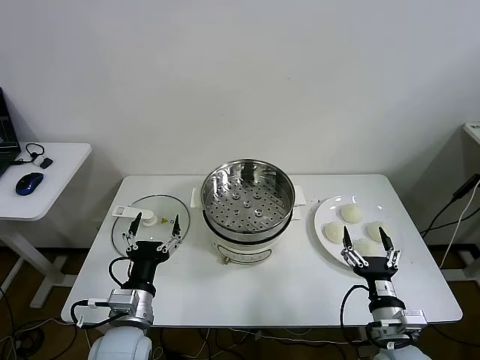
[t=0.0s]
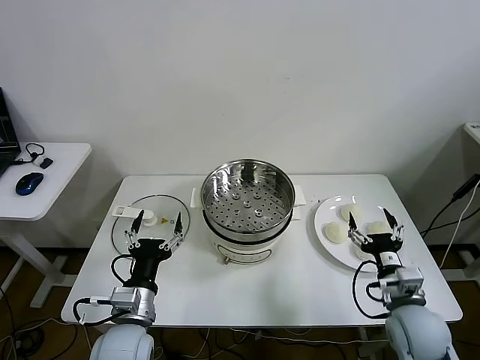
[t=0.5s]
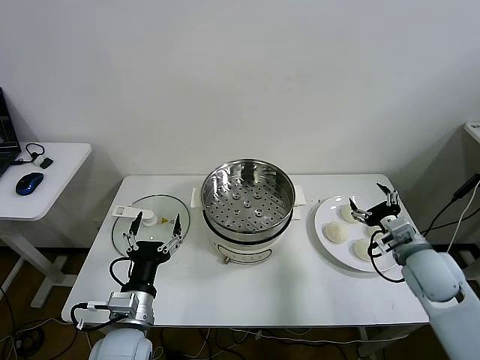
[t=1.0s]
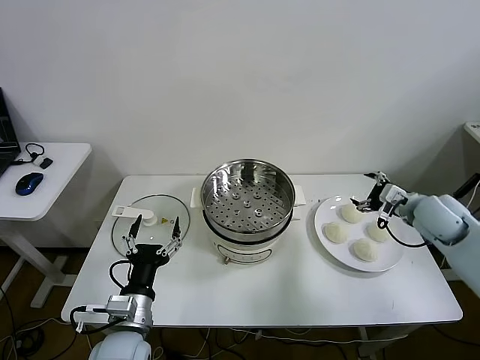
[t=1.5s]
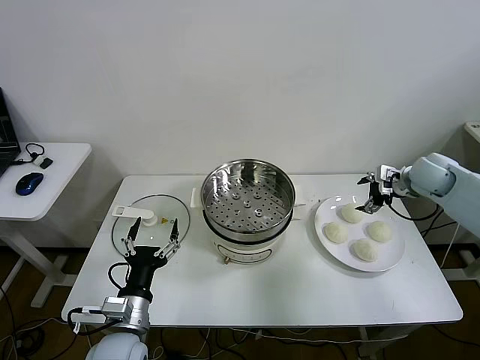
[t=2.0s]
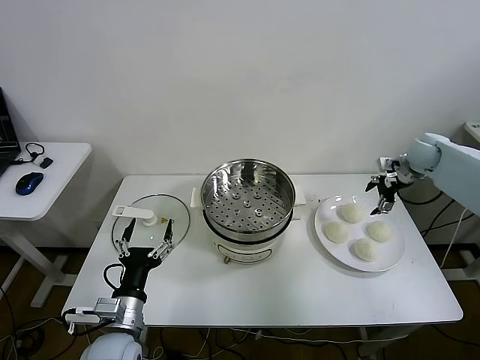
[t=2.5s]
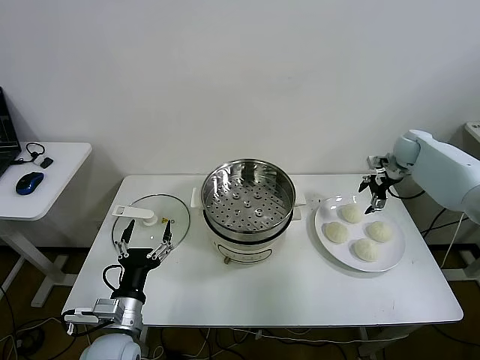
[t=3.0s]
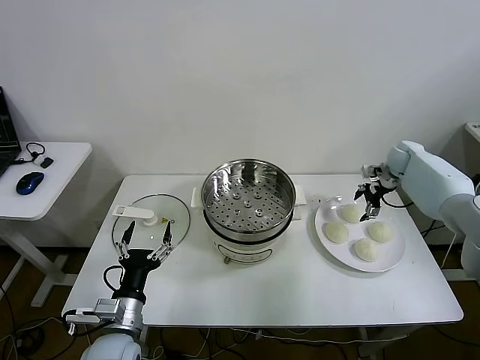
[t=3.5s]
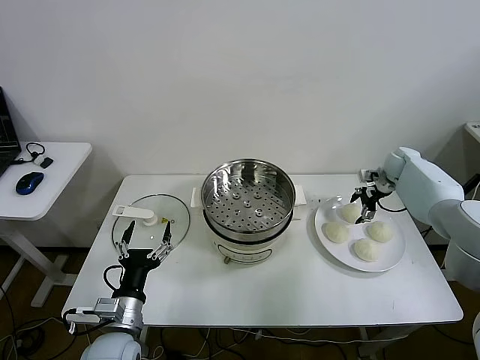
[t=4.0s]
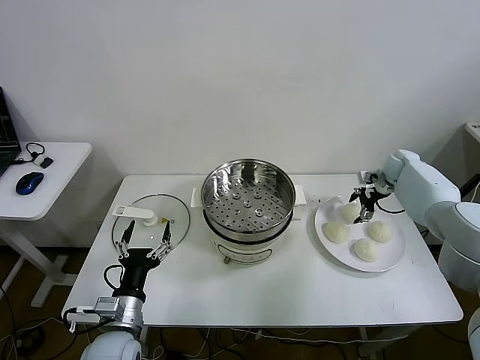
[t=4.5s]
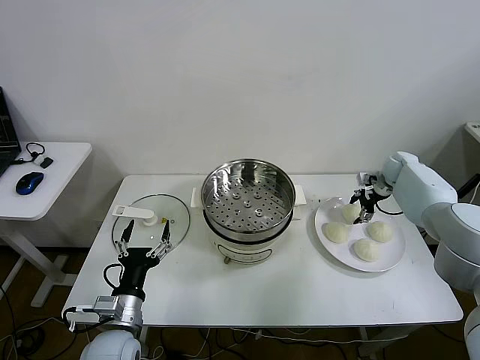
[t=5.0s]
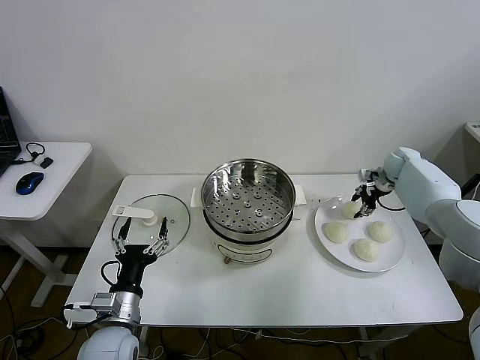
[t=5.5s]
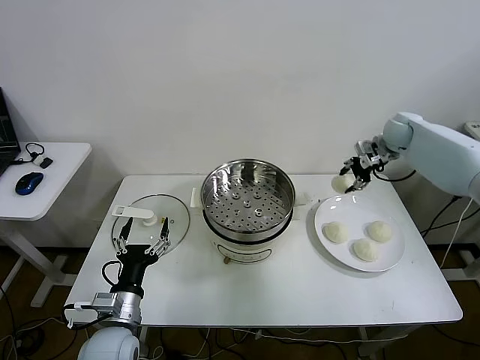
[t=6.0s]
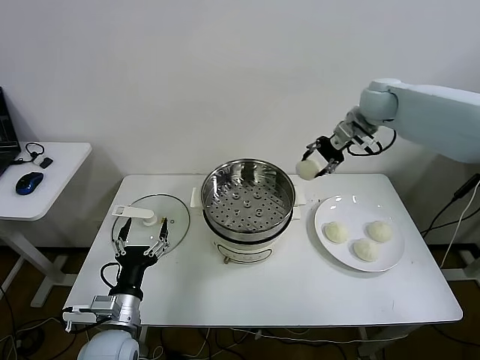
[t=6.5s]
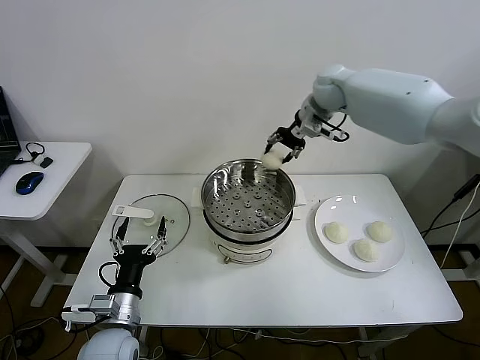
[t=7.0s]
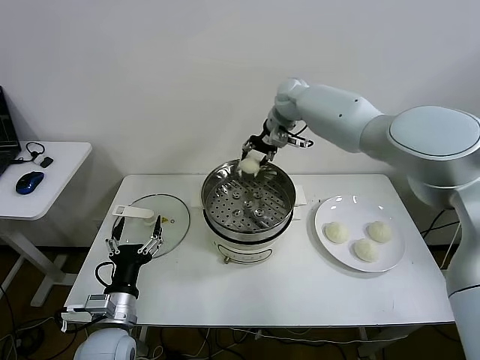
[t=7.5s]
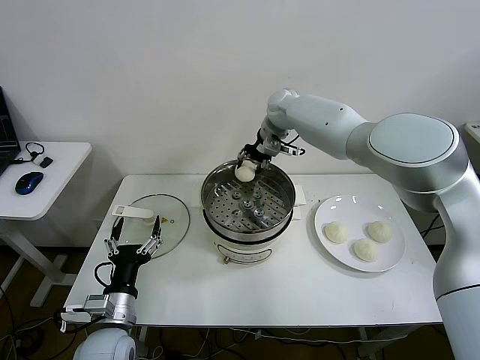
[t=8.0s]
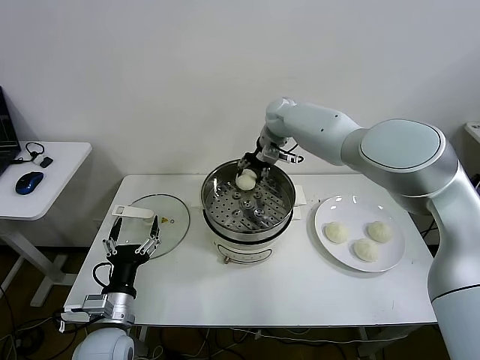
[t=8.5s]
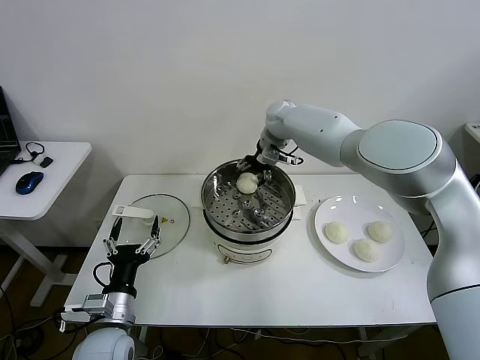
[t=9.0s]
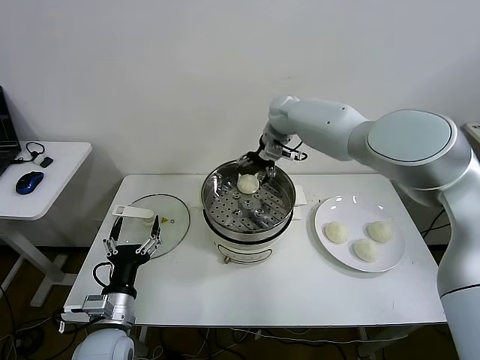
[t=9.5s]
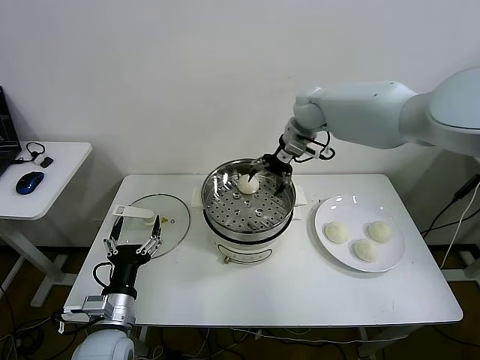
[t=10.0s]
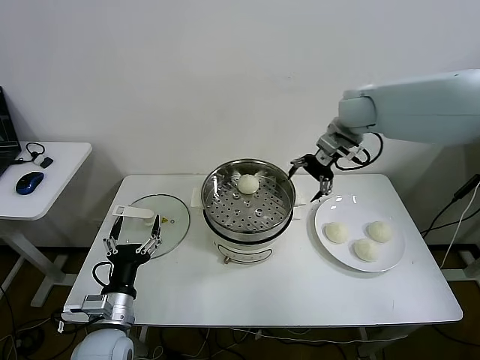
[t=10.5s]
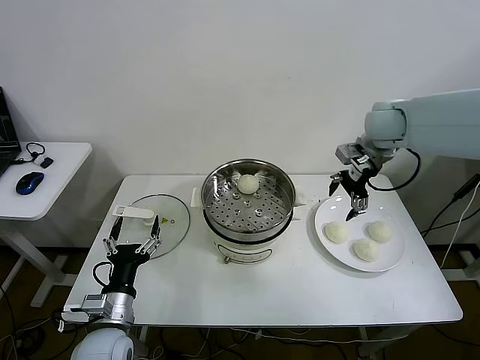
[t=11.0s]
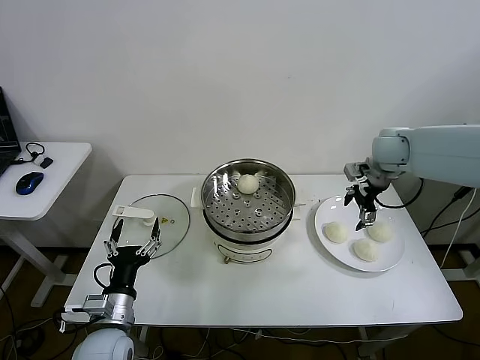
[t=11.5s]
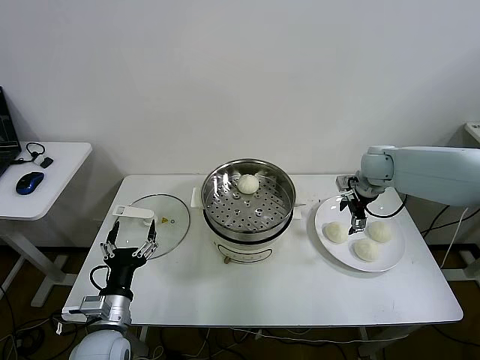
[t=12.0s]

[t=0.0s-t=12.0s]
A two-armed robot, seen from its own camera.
Step, t=0.0s to t=5.0s: Grasp the baozi in the plate with right gripper.
Step, t=5.5s to t=9.0s: Place the baozi on the steamer with right gripper.
t=2.0s to t=4.0s: The right gripper shifts roughly 15 cm forward and downward.
t=4.0s to t=6.0s: The right gripper shifts some 10 cm upward, and closes its fingers.
t=6.0s to t=8.0s: The right gripper moves to the left, some 30 cm.
t=8.0s to t=10.0s: The right gripper heads to the right, covering some 5 cm, and opens its fingers.
t=10.0s to t=12.0s: The right gripper is displaced to the right and downward by roughly 20 cm.

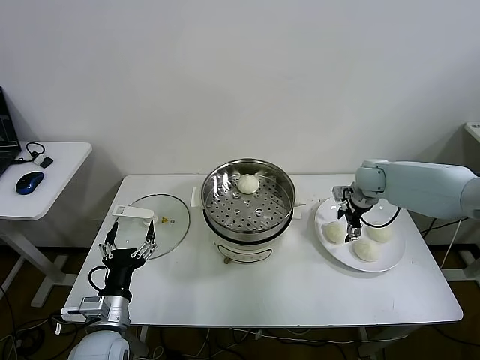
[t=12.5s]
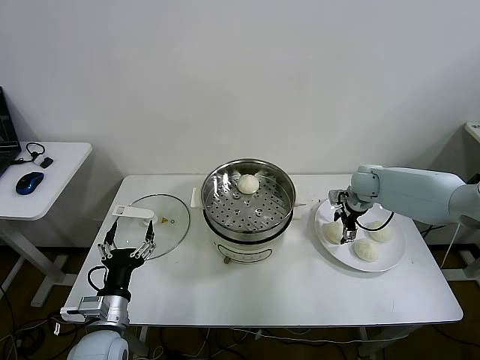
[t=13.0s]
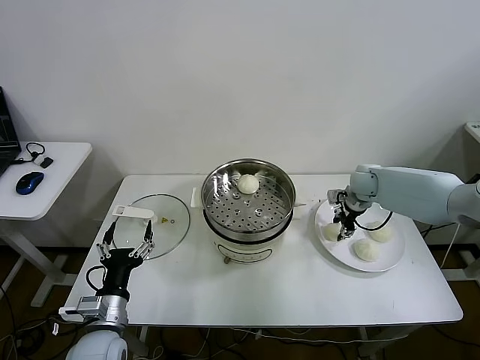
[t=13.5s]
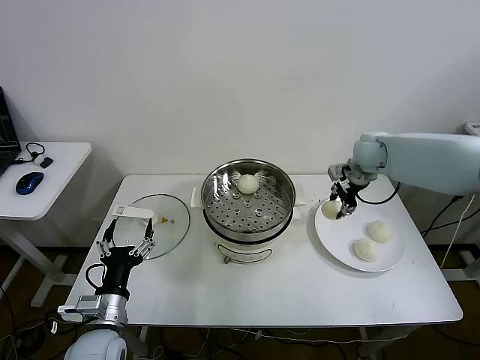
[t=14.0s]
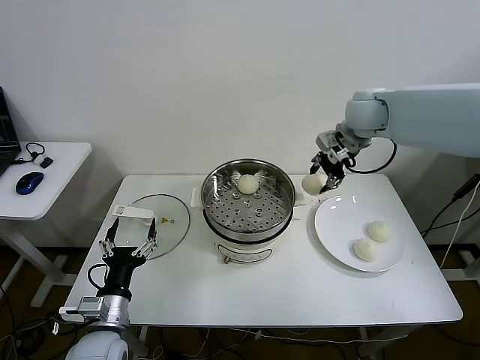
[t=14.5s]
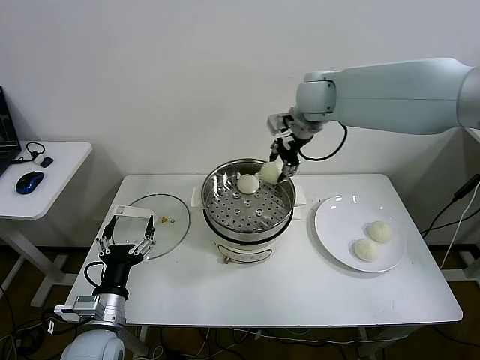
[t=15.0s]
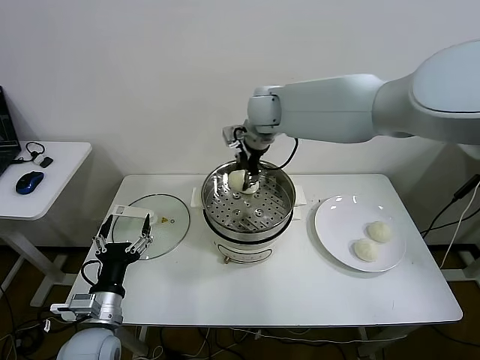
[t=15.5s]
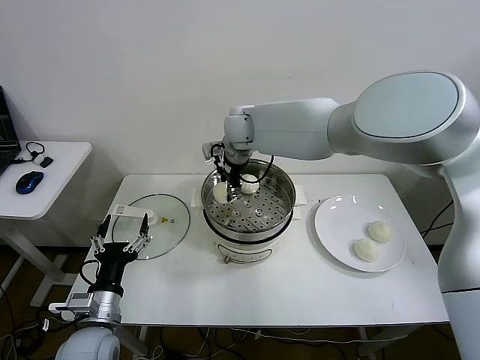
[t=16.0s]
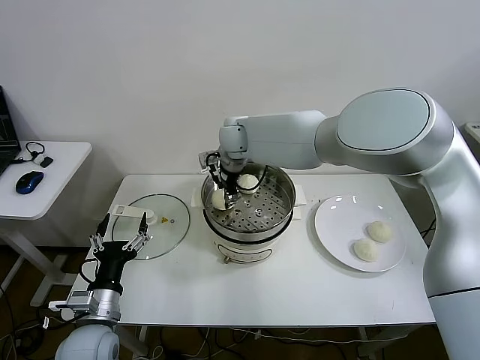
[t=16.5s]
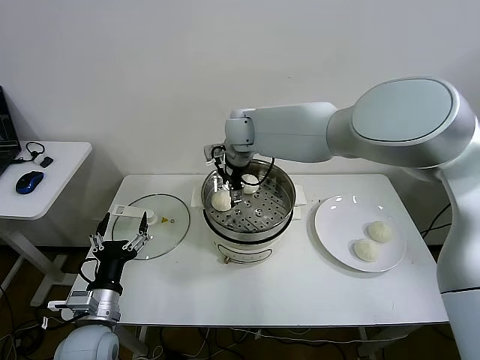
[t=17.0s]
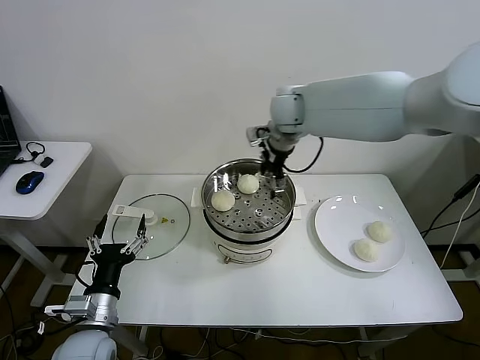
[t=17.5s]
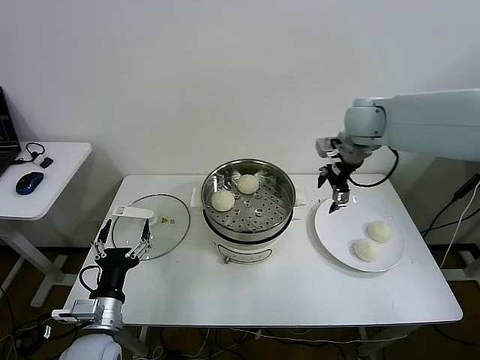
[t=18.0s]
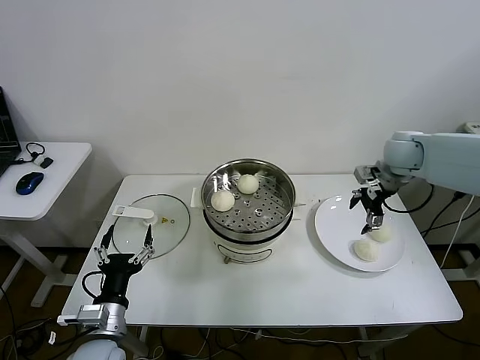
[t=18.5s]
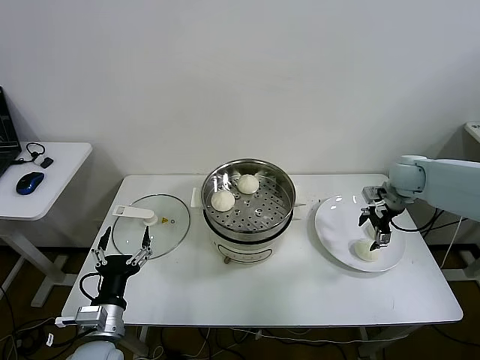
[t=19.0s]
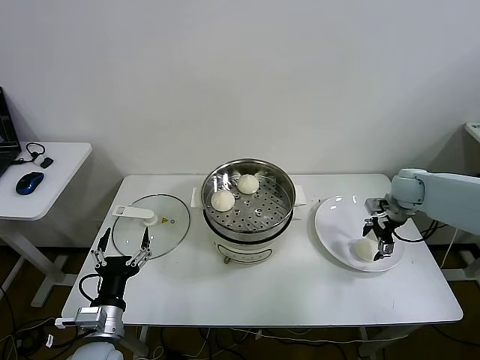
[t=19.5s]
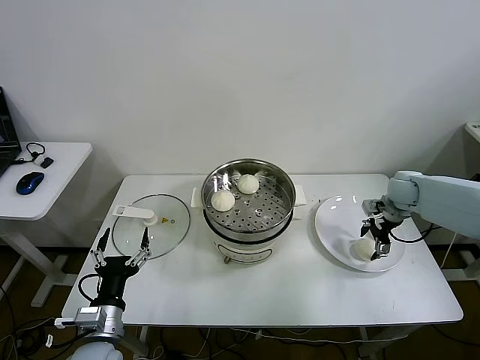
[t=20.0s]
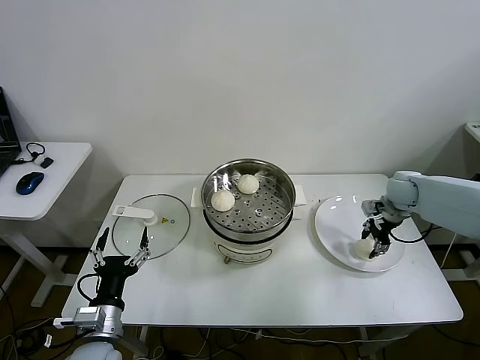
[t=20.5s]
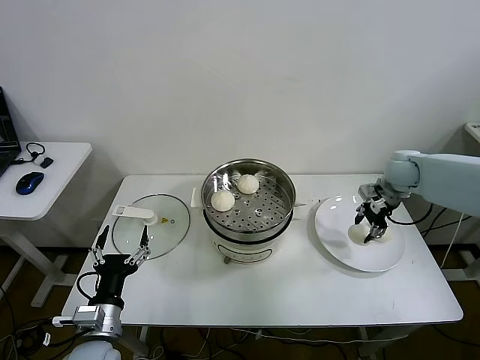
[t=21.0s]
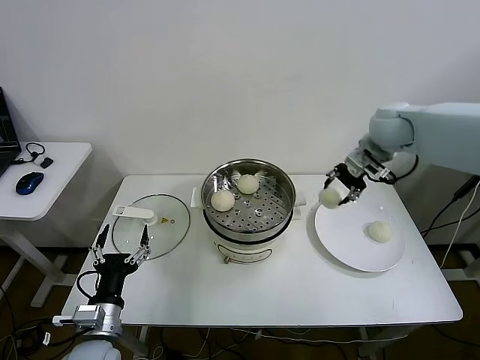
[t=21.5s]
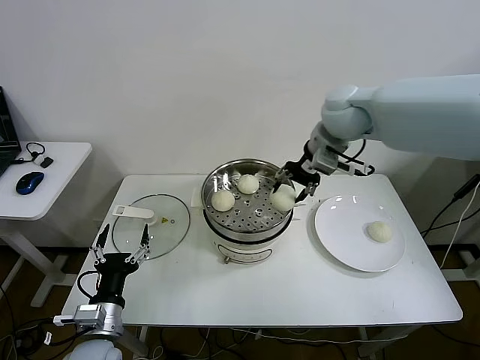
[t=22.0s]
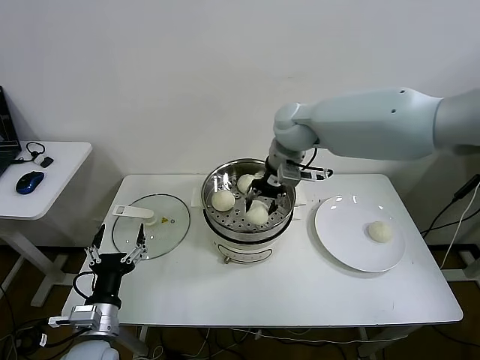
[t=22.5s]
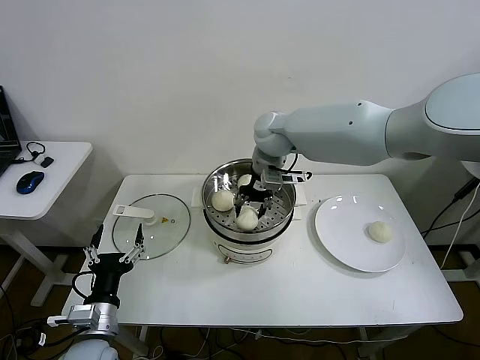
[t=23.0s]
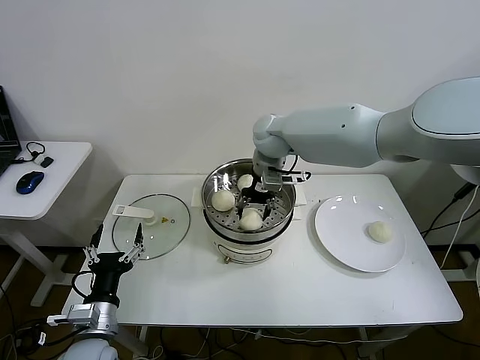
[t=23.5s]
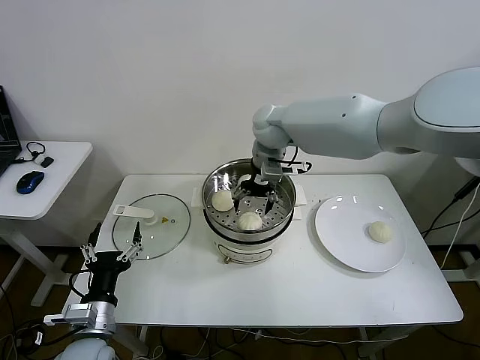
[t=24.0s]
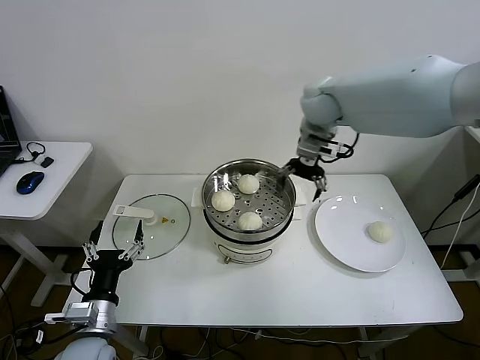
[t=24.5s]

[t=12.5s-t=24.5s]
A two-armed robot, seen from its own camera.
Step, t=14.0s to t=16.5s: Place the baozi on the steamer with right gripper.
Step, t=17.0s to t=20.5s: Grasp the baozi in the plate with right gripper.
Step, t=21.0s to t=23.5s: Place the baozi on the steamer with right gripper.
t=12.5s to t=14.5s: The right gripper heads upward and to the left, covering approximately 20 cm, and closes its fingers.
t=14.5s to t=16.5s: The right gripper travels to the left by about 25 cm.
t=16.5s to t=18.5s: The right gripper goes approximately 40 cm to the right, and opens up.
t=18.5s to t=20.5s: The right gripper travels downward and to the right by about 15 cm, and closes up.
t=20.5s to t=22.5s: The right gripper is displaced to the left and upward by roughly 35 cm.
t=22.5s to t=24.5s: The right gripper goes some 5 cm to the right, and opens its fingers.

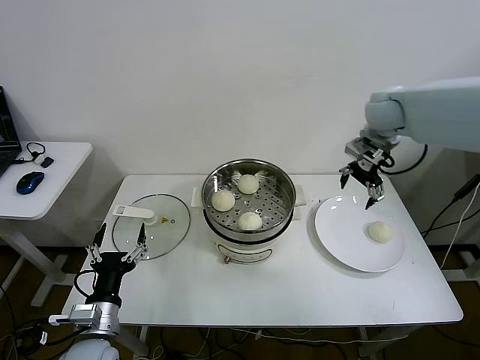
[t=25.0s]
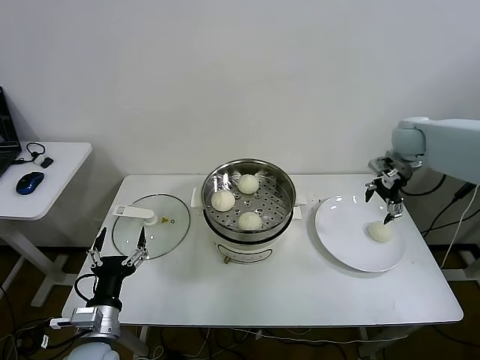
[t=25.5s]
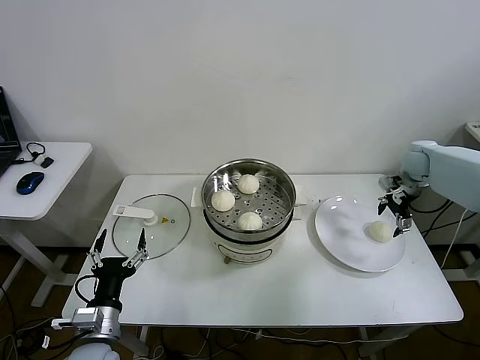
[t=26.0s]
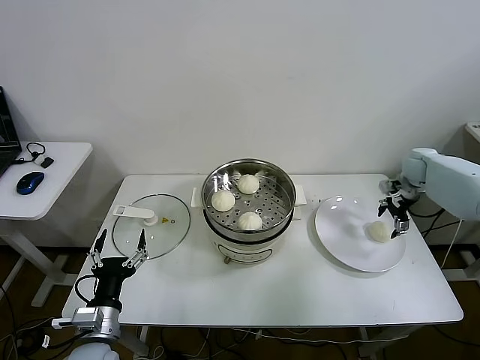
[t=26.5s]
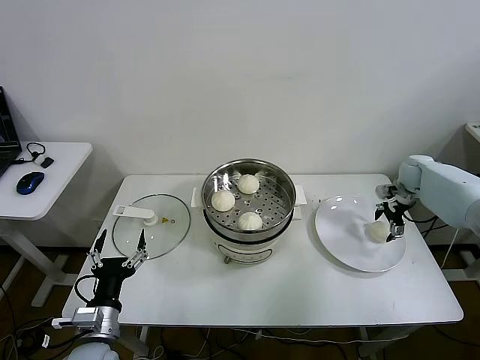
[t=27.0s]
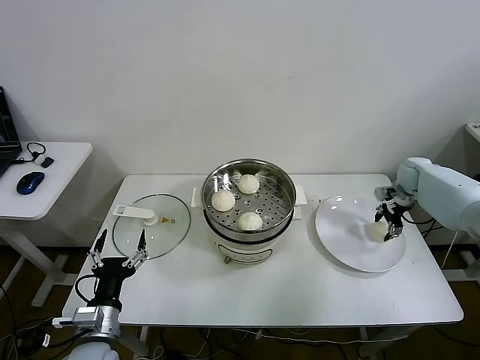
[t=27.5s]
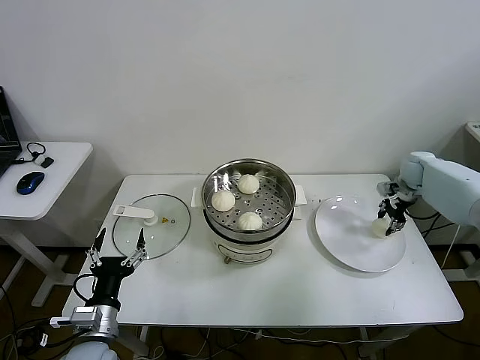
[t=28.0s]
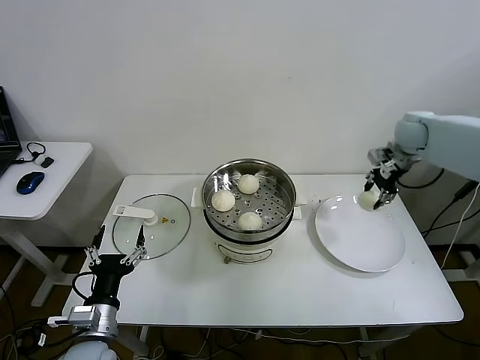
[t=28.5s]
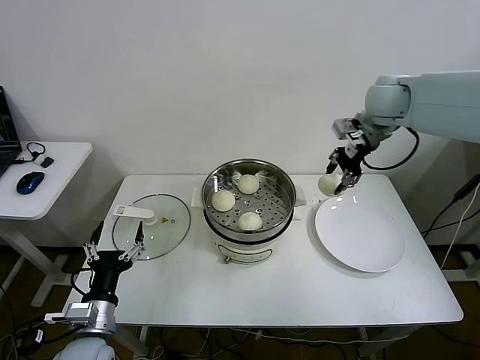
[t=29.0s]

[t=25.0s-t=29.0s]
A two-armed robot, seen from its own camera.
Step, t=25.0s to t=27.5s: Grasp the baozi in the plate with right gripper.
t=25.0s to t=27.0s: The right gripper travels downward and to the right by about 30 cm.
t=27.0s to t=29.0s: The right gripper moves upward and to the left, approximately 30 cm, and closes its fingers.
